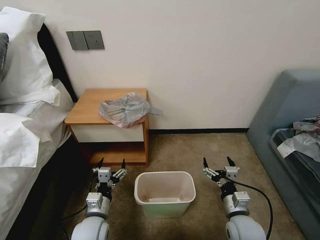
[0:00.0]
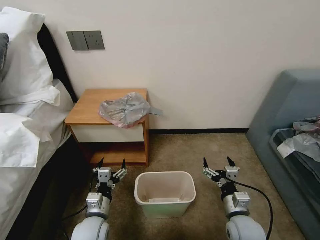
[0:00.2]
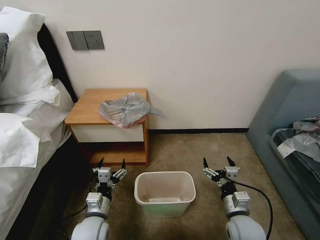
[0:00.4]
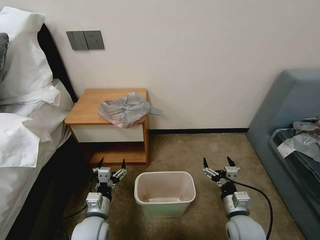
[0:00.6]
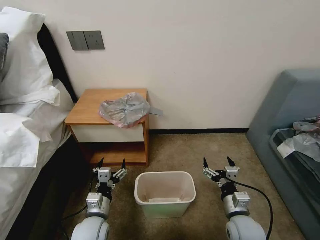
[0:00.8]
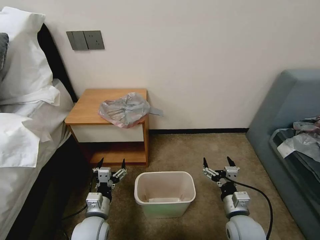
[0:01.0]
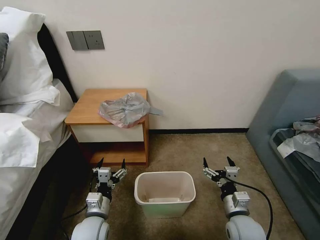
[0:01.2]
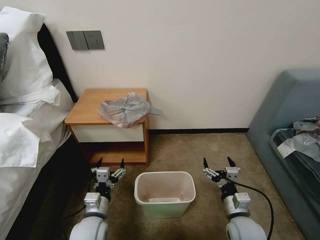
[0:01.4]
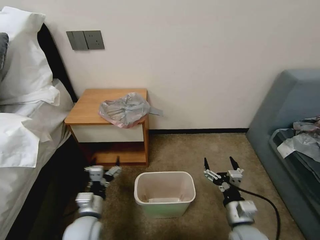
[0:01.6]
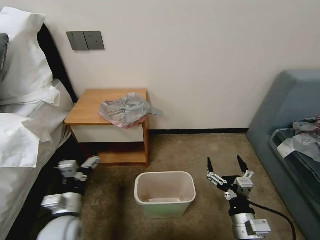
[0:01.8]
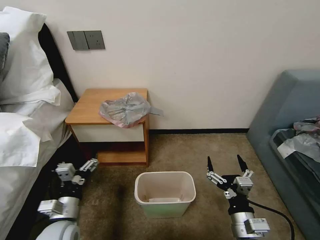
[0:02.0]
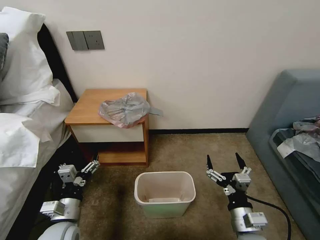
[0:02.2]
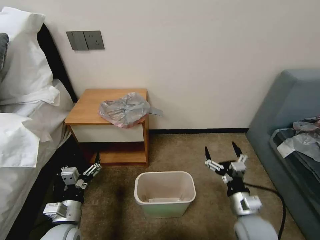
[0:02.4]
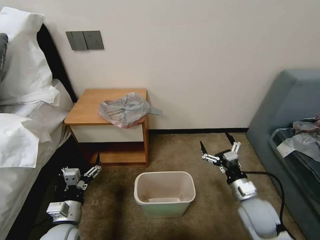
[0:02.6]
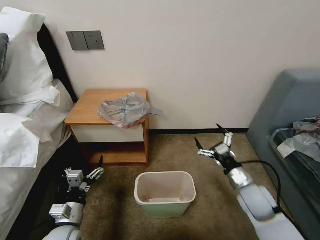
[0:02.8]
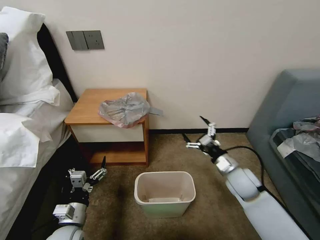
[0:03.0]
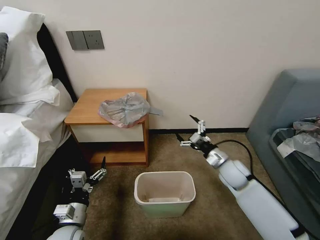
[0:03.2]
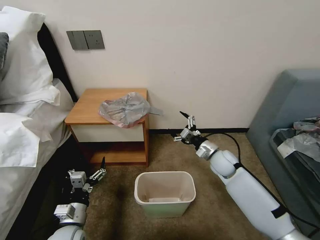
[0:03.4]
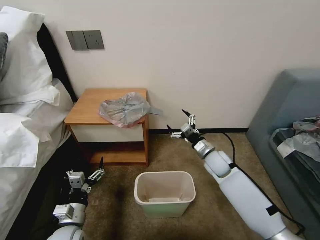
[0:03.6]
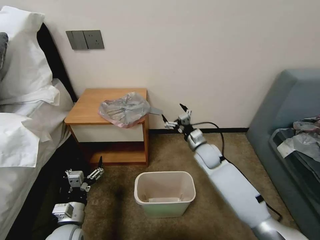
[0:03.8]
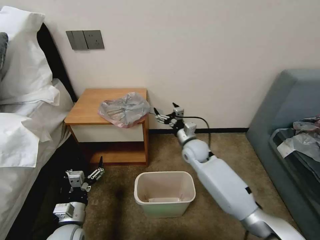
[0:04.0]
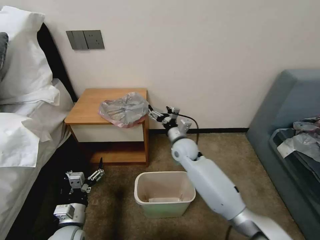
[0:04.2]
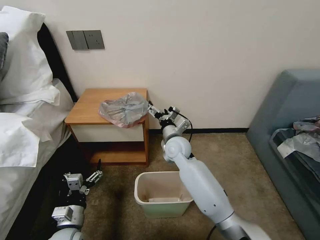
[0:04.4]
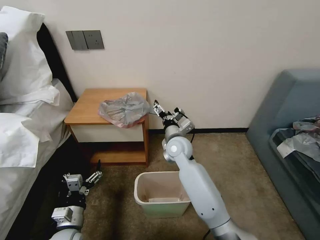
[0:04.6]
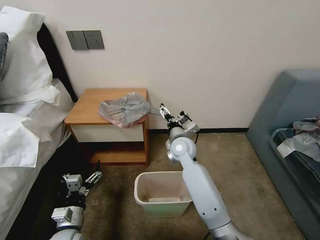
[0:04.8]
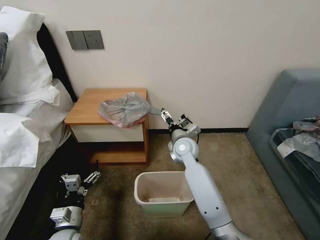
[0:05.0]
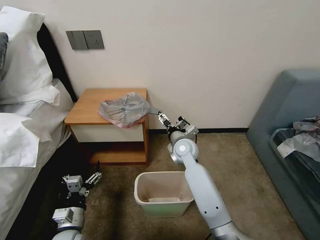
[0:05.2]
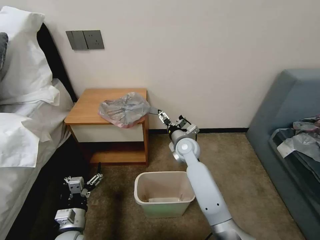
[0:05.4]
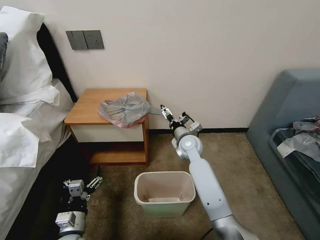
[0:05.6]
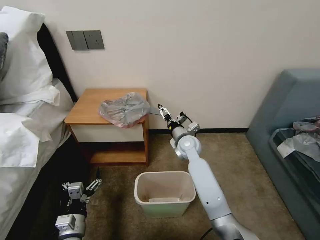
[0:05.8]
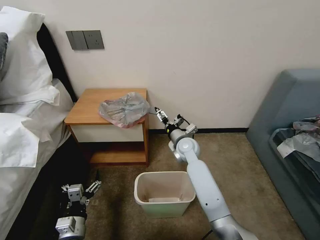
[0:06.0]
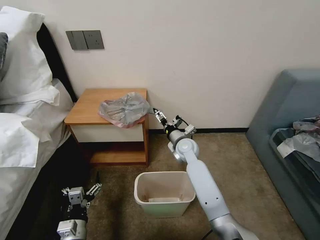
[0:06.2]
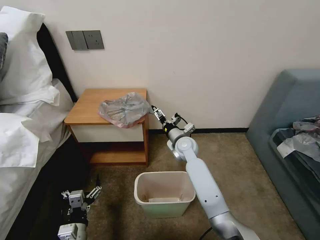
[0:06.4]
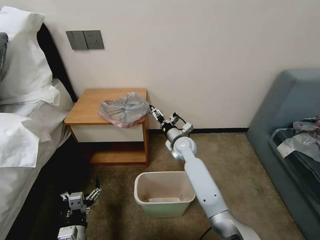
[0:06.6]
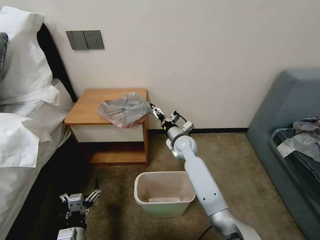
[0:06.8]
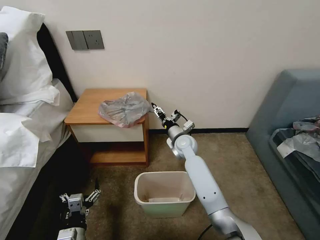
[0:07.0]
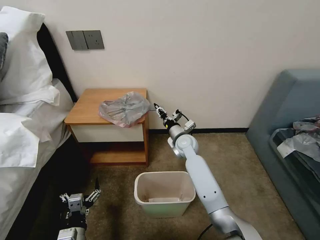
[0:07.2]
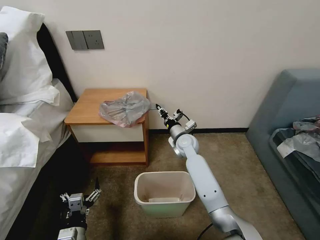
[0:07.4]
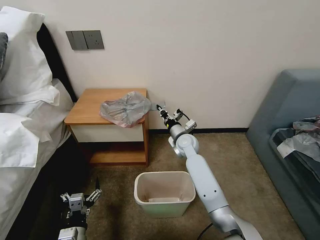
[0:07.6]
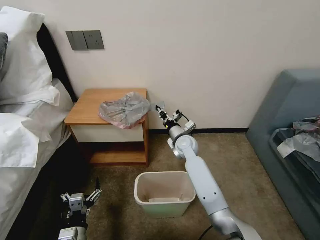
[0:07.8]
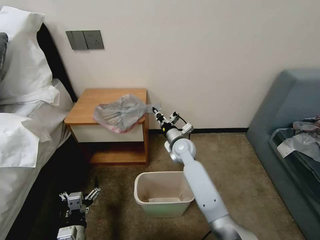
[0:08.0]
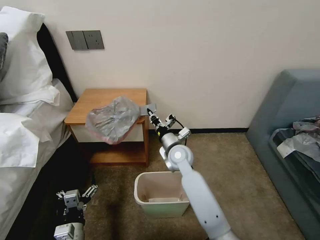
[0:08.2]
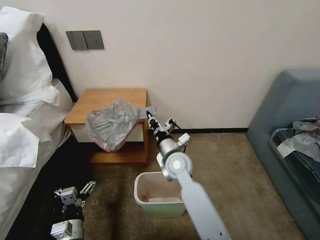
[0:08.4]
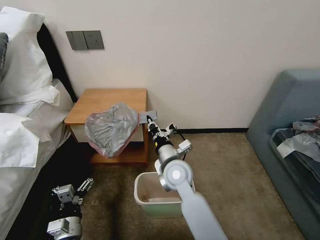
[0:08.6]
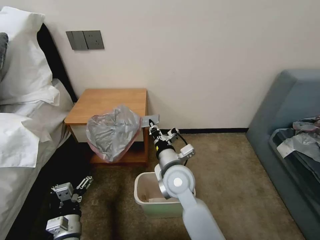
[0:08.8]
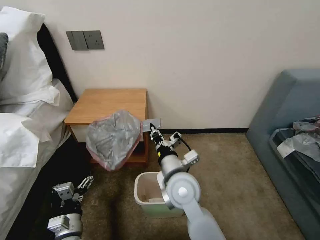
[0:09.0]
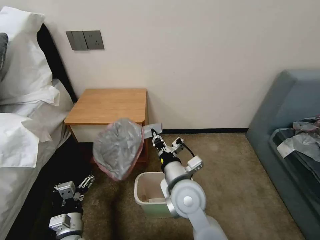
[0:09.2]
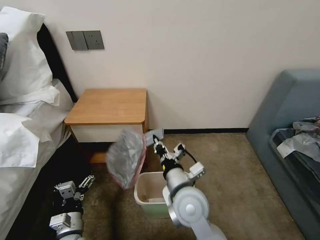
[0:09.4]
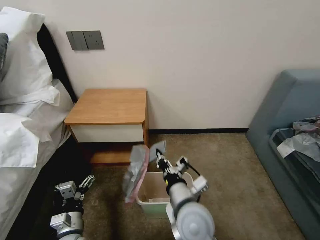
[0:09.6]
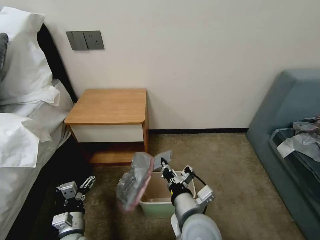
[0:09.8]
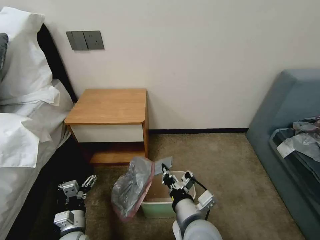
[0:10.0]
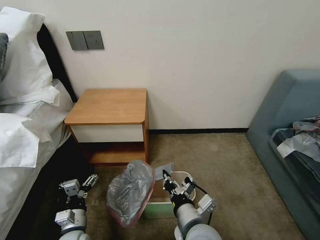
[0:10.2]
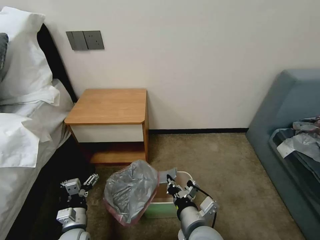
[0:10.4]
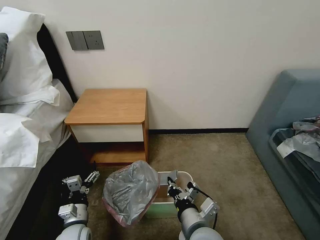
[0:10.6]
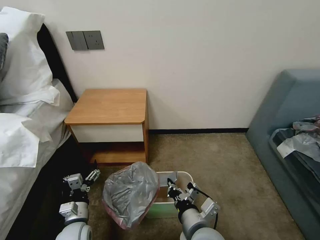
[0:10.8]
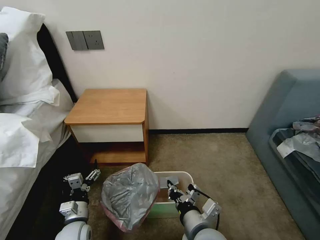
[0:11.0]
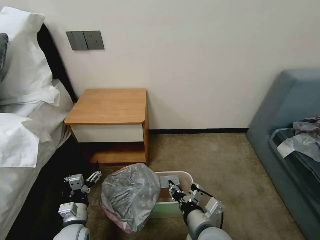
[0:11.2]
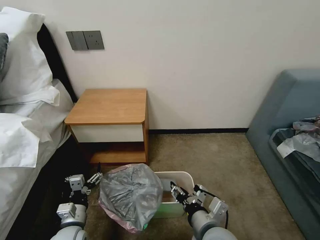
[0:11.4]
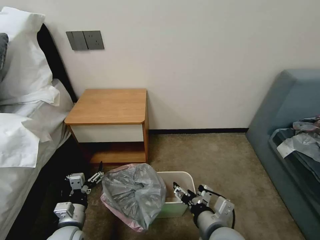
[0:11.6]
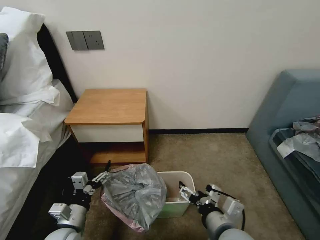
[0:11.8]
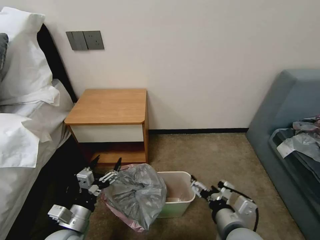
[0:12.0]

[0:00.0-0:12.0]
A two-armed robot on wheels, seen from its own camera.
Task of the whole recording: Pick up the garbage bag from the table and place it over the trash can.
0:01.6 to 0:03.0: The right gripper is displaced forward by about 15 cm.
0:03.0 to 0:04.4: The right gripper shifts about 25 cm to the left and forward.
0:04.4 to 0:06.0: The right gripper ends up approximately 5 cm from where it was.
0:06.0 to 0:07.6: The right gripper closes.
0:07.6 to 0:09.0: The right gripper heads backward, covering about 20 cm.
0:09.0 to 0:10.4: The right gripper goes roughly 15 cm backward, downward and to the right.
0:10.4 to 0:12.0: The right gripper goes some 10 cm to the right, and opens up, while the left gripper shifts some 10 cm upward.

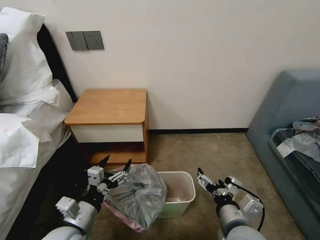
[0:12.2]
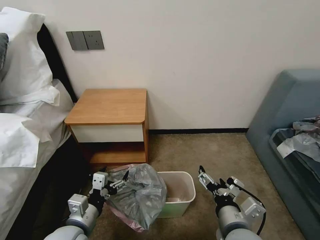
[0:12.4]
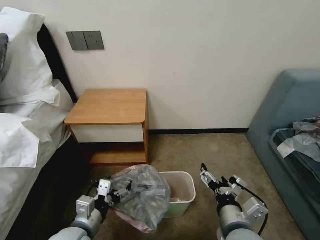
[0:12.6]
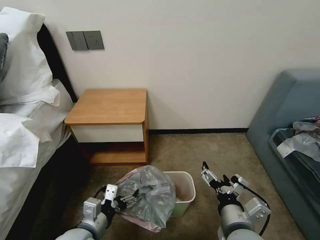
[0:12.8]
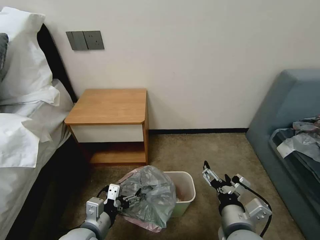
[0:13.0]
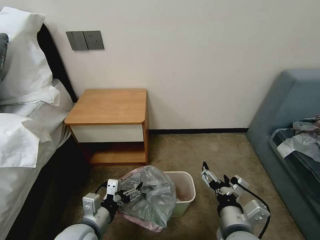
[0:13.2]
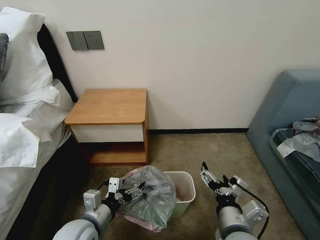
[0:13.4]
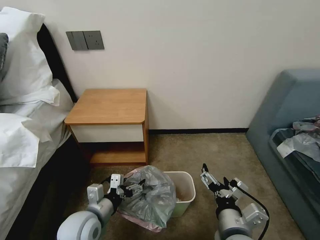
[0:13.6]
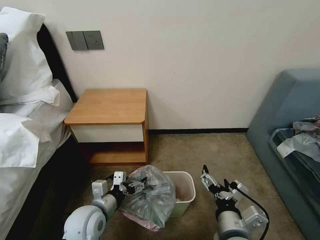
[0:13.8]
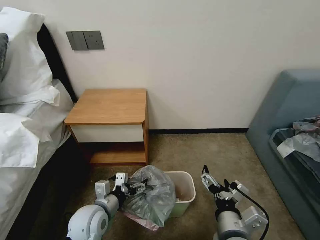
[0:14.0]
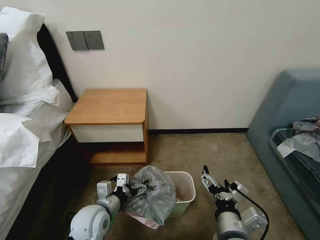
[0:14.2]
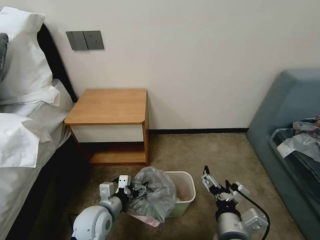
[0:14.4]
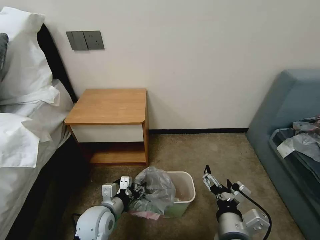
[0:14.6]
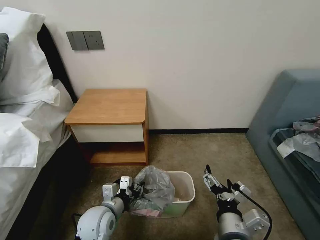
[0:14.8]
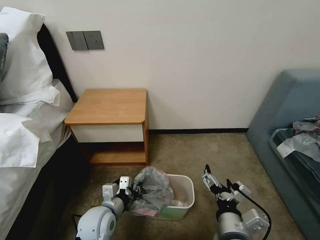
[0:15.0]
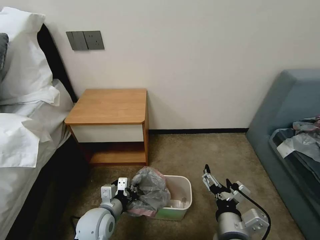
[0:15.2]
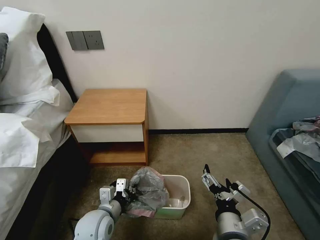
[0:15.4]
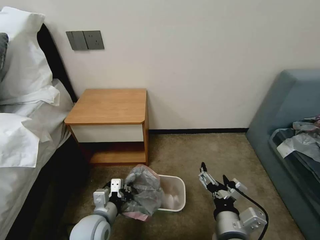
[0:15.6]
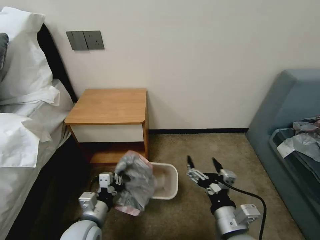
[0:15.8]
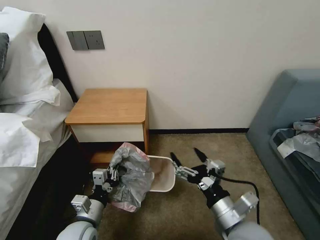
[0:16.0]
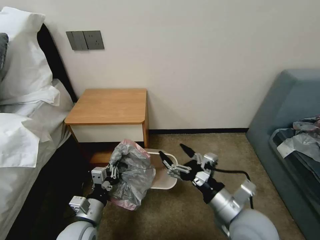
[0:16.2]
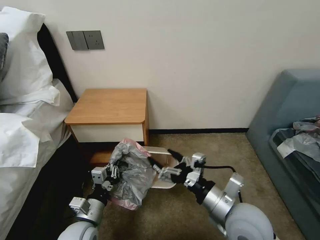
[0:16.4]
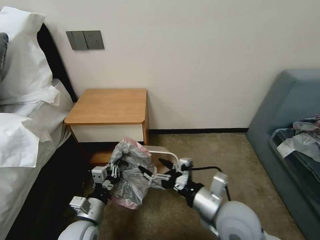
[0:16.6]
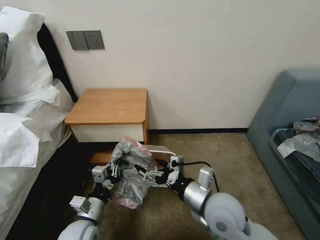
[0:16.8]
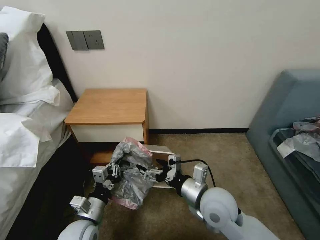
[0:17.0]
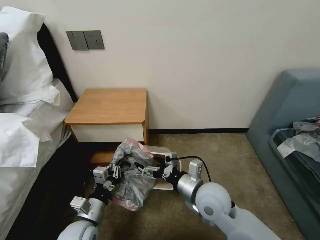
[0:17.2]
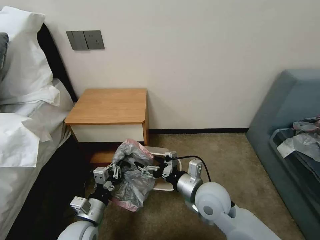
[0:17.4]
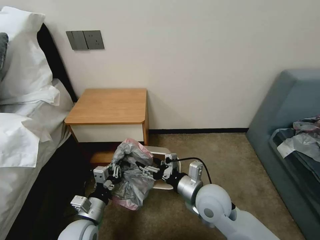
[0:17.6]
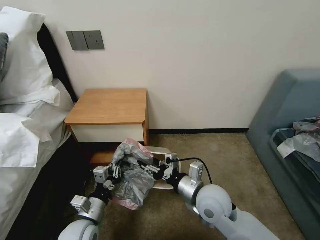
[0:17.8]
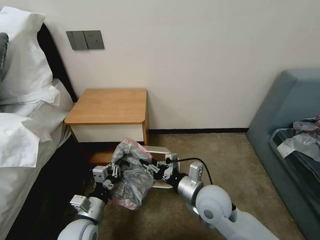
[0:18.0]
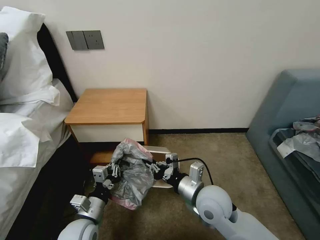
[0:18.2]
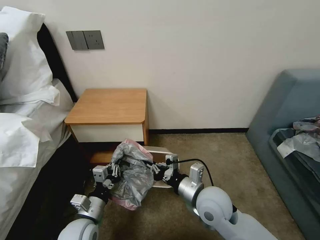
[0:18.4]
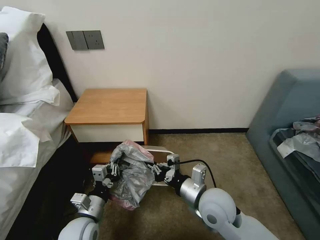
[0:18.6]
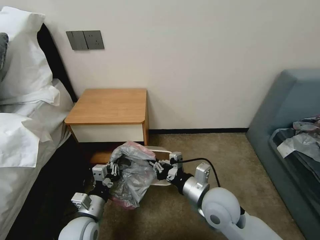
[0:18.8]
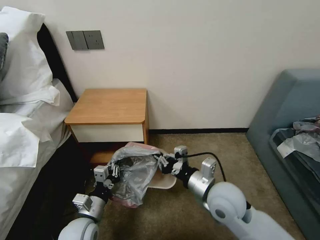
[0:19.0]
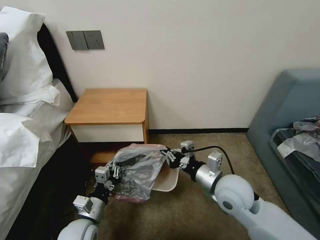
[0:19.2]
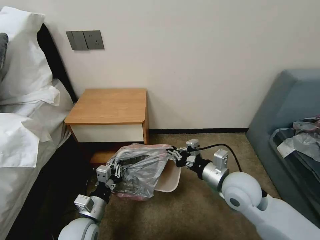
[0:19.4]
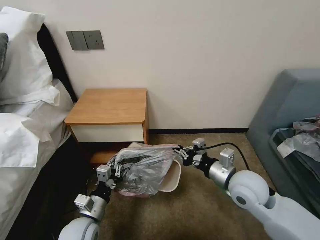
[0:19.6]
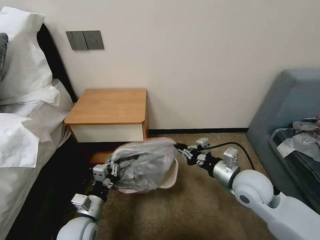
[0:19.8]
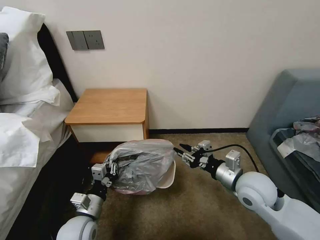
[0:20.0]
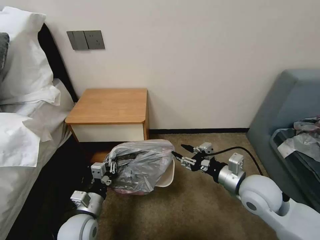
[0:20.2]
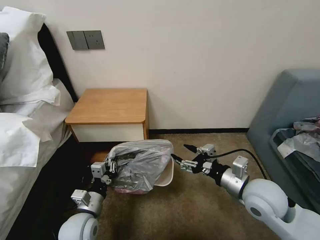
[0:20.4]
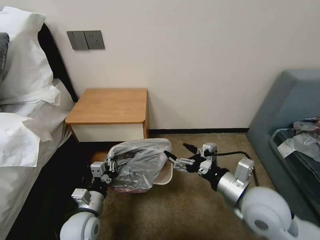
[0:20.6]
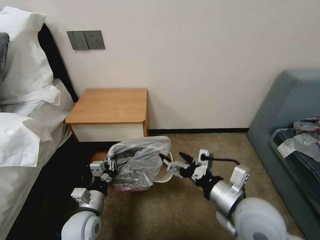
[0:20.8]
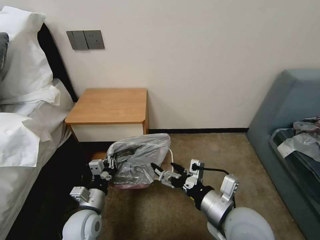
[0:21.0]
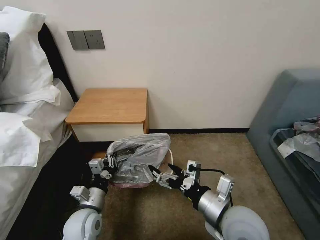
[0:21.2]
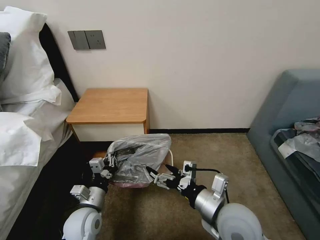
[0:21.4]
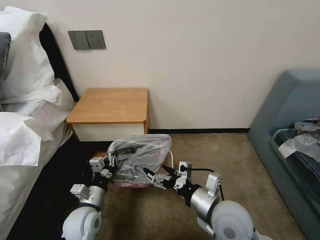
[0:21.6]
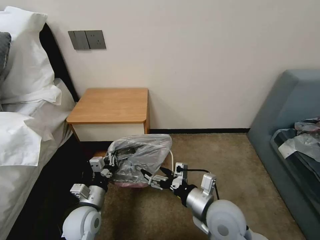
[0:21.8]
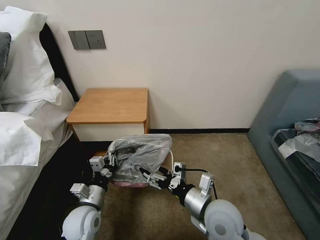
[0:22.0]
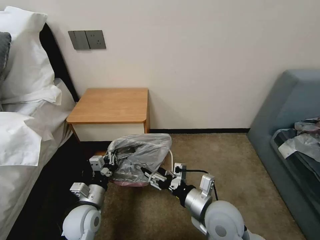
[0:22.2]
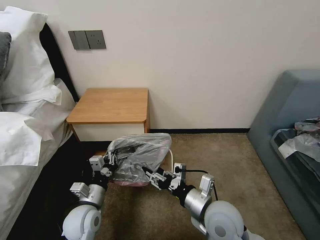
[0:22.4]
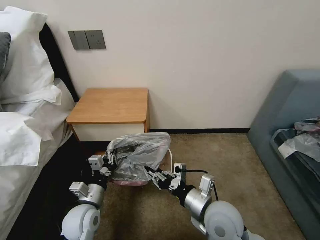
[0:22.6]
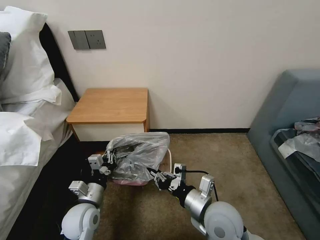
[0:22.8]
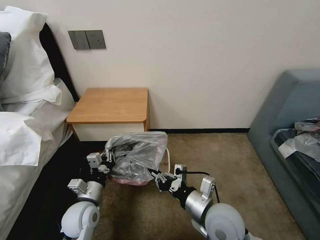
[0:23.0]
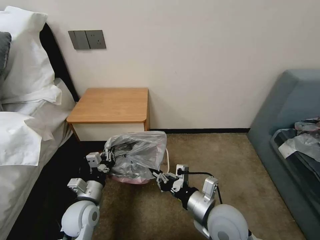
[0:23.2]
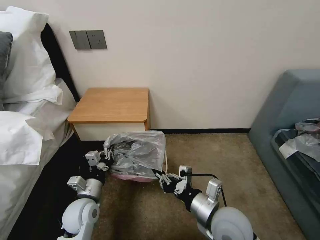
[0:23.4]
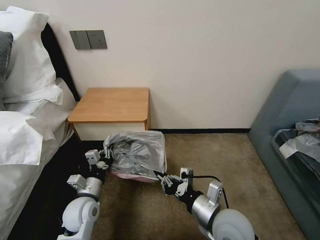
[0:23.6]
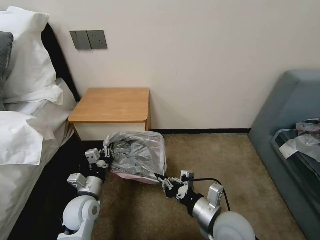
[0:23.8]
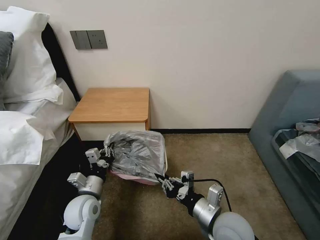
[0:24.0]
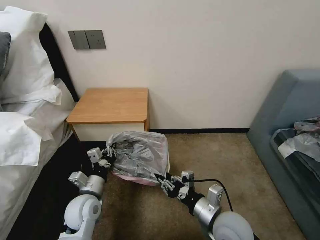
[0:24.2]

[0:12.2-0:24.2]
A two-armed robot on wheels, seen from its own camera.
Task of the whole recording: Pick up the garbage bag from the table and place it over the trash can.
0:12.2 to 0:13.8: The left gripper heads forward, covering about 5 cm.
0:13.8 to 0:15.2: The left gripper closes.
0:15.2 to 0:16.6: The right gripper moves forward, approximately 5 cm. Meanwhile the left gripper ends up roughly 5 cm from where it was.
0:16.6 to 0:18.2: The right gripper travels forward by approximately 5 cm, and closes.
0:18.2 to 0:19.8: The right gripper heads to the right, covering about 10 cm.
0:19.8 to 0:21.2: The right gripper shifts some 10 cm backward and to the left, and opens up.
0:21.2 to 0:22.6: The right gripper moves some 5 cm, and closes its fingers.
0:22.6 to 0:24.2: The grippers stay close to where they were, moving slightly.
